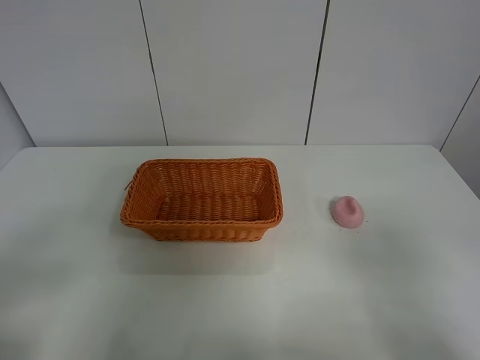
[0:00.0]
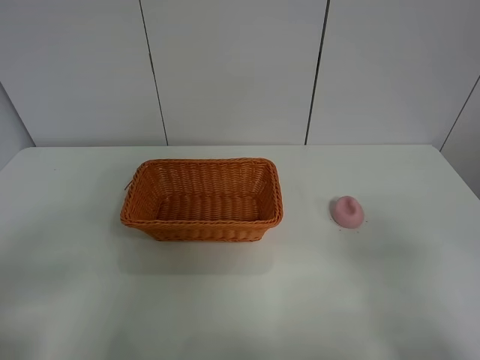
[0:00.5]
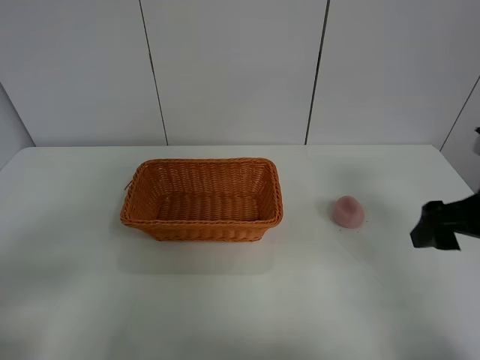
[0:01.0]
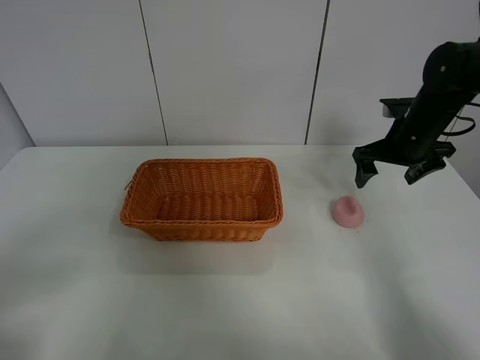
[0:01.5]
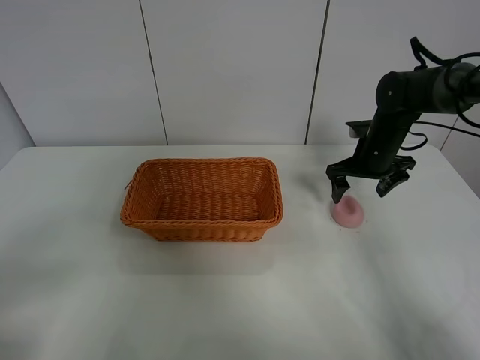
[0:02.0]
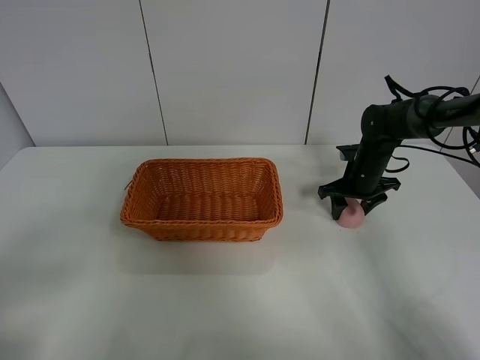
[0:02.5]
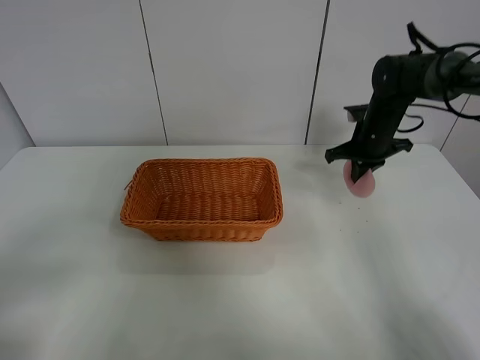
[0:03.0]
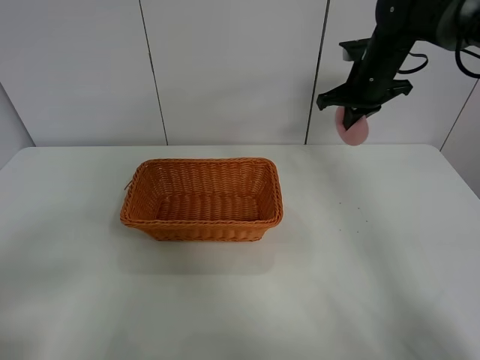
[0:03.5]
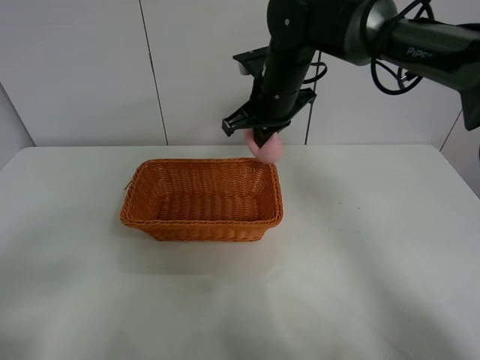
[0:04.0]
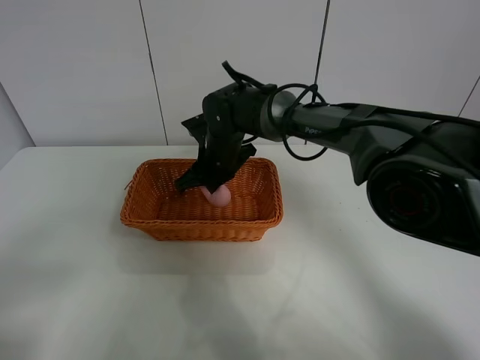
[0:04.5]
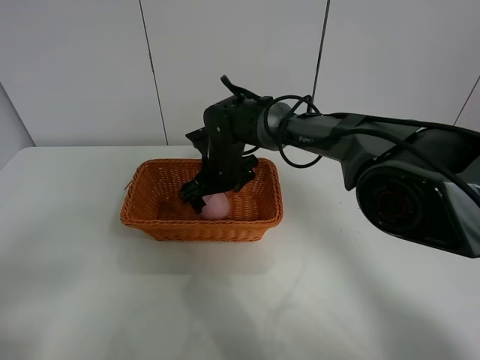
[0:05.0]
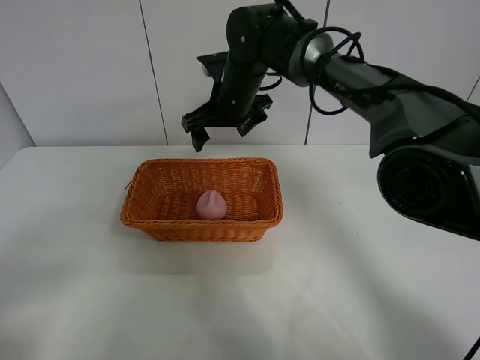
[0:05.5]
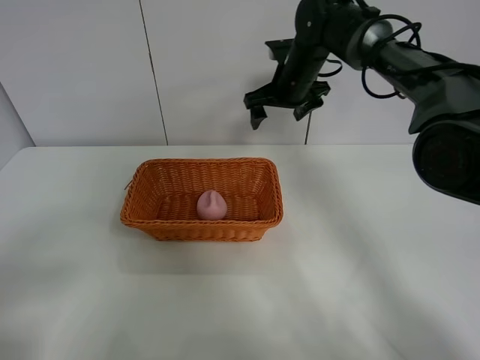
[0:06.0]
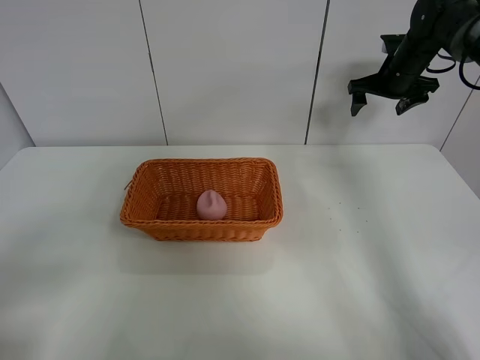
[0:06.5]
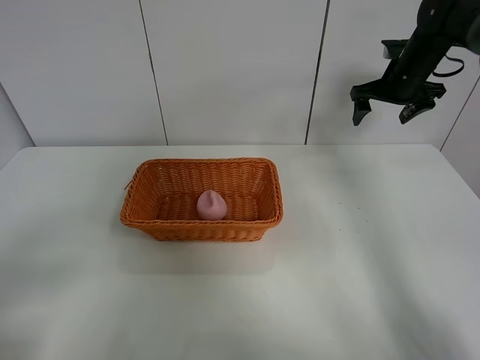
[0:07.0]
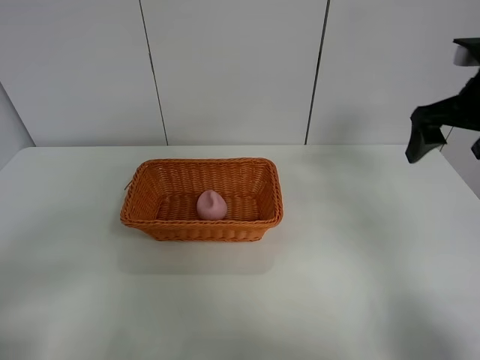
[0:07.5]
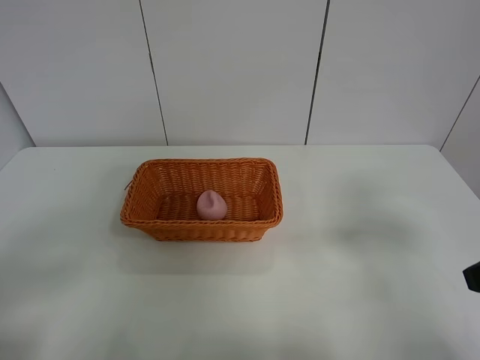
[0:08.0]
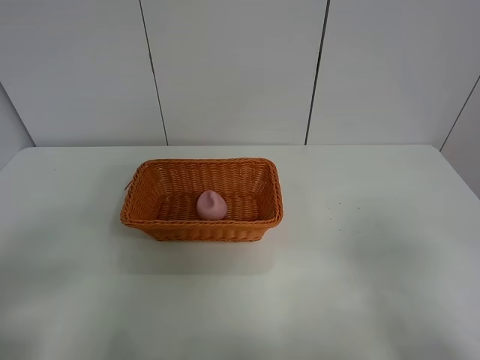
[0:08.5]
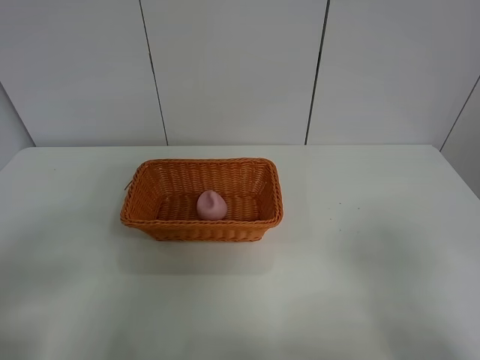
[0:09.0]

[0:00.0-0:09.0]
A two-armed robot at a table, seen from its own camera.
Step, 0:00.0 to 0:02.5: Grasp the peach with right gripper.
Step, 0:03.0 to 0:05.5: Place the peach in the basket with right gripper.
0:00.0 to 0:02.0: The right gripper goes approximately 40 cm forward.
0:02.0 to 0:04.5: The right gripper travels to the left by approximately 25 cm, and closes up.
0:04.5 to 0:07.0: The right gripper is displaced to the right by about 30 cm, and opens.
0:07.0 to 0:09.0: The right gripper heads backward, covering some 50 cm.
